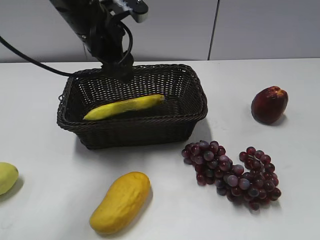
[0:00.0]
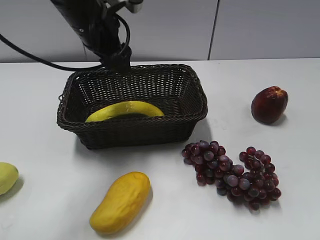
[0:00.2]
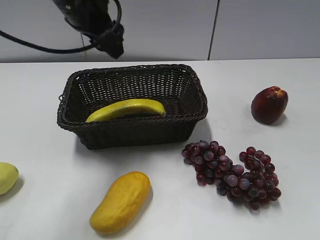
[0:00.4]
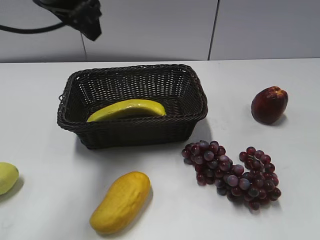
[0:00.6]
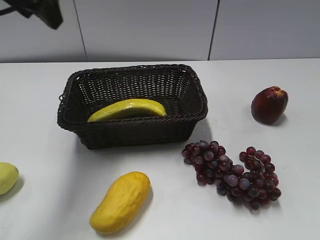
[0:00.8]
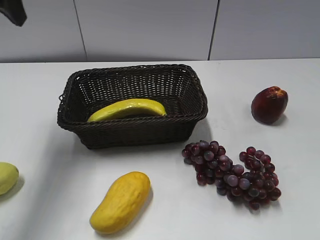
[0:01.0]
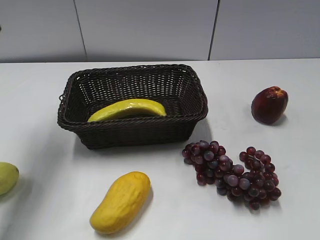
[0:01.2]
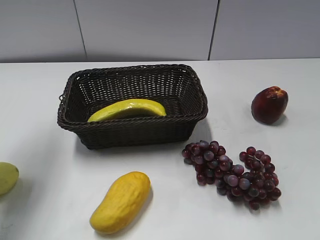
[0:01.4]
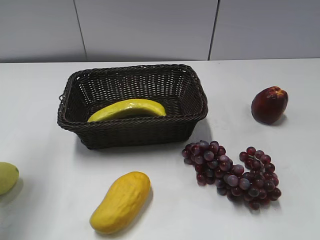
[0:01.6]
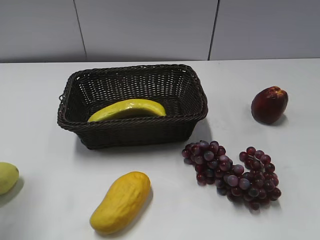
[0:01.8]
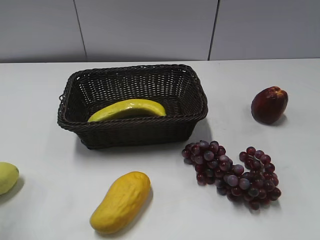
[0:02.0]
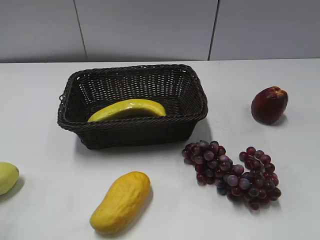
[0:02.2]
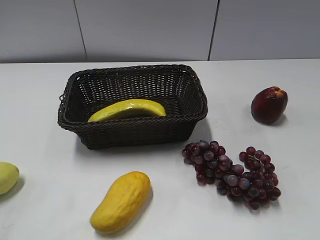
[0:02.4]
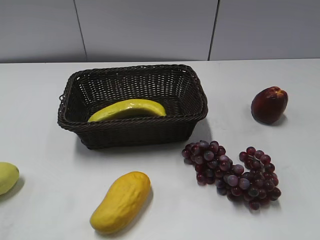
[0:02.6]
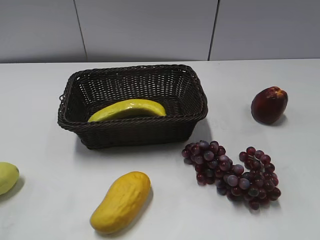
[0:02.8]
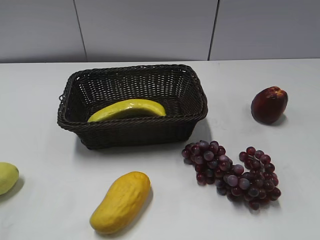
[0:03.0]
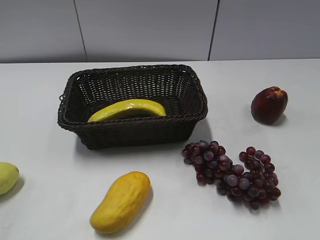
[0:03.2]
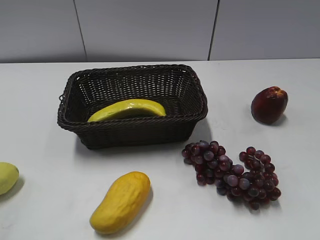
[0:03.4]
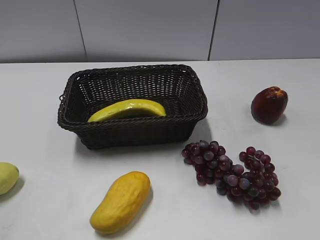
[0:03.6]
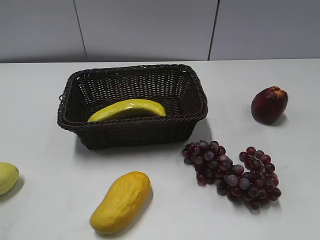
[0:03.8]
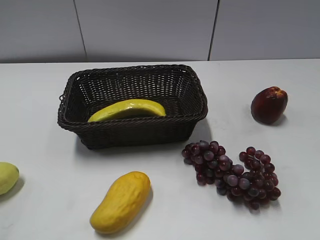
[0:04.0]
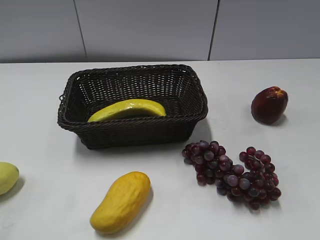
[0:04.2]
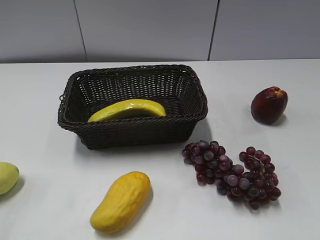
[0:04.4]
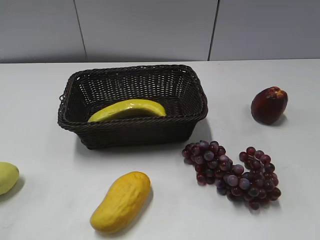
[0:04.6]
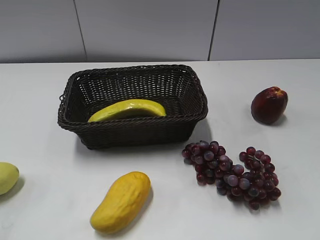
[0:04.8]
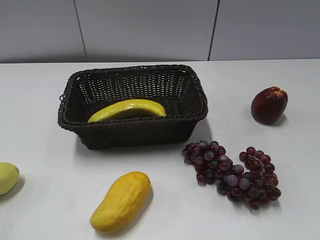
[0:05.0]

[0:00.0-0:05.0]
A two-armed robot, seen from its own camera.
0:00.0 to 0:01.6: The left gripper heads to the left and backward, covering some 25 cm.
0:01.6 to 0:03.4: The left gripper travels backward by approximately 20 cm.
